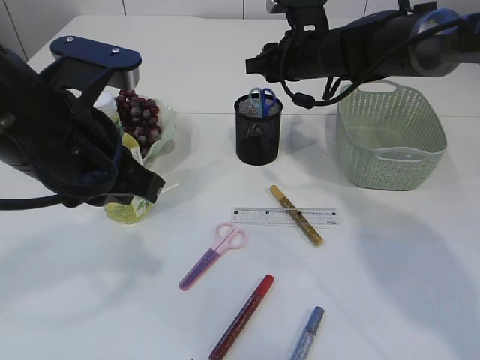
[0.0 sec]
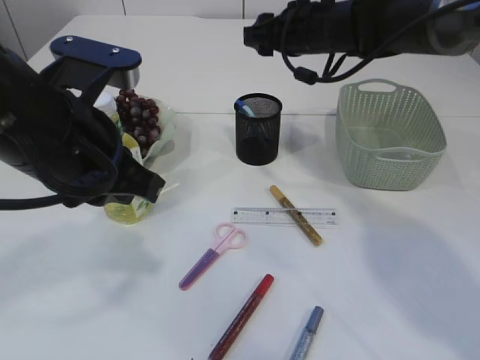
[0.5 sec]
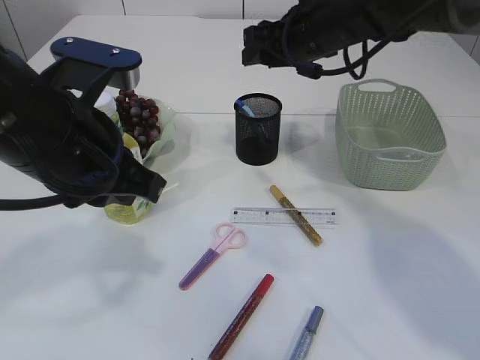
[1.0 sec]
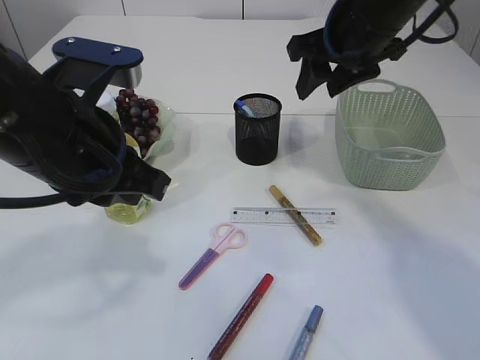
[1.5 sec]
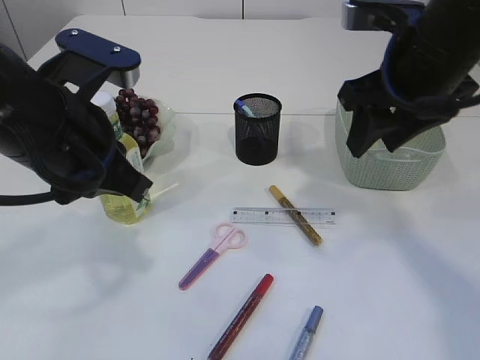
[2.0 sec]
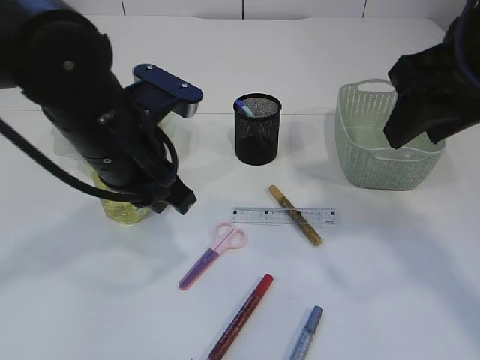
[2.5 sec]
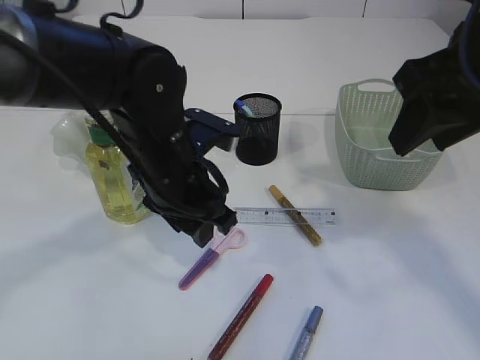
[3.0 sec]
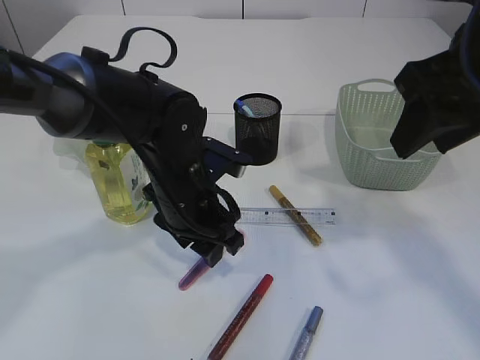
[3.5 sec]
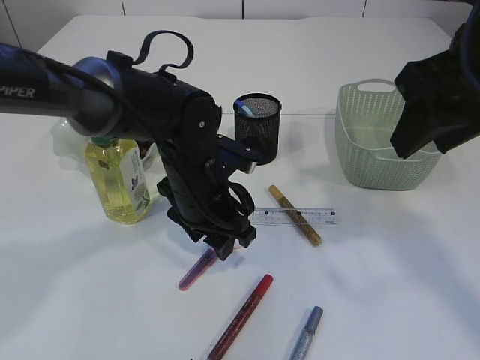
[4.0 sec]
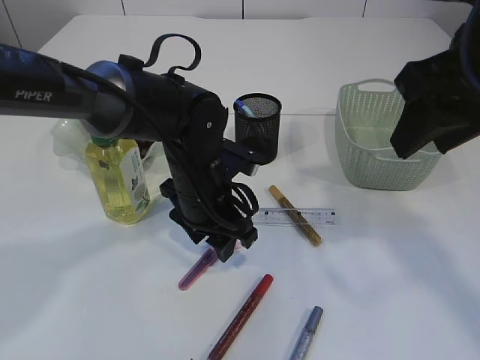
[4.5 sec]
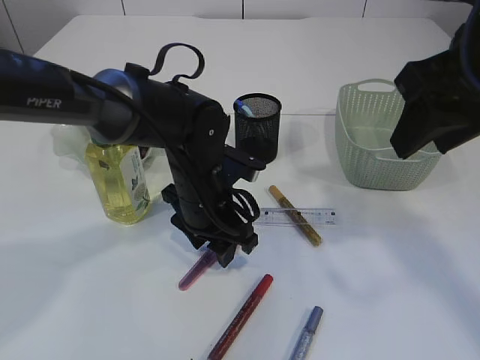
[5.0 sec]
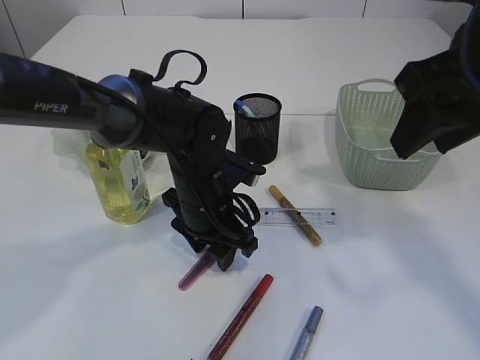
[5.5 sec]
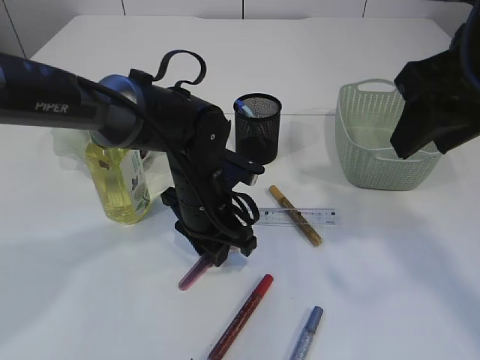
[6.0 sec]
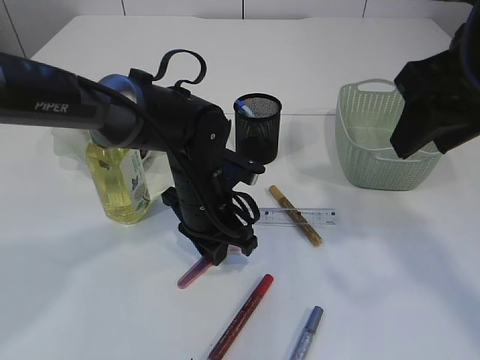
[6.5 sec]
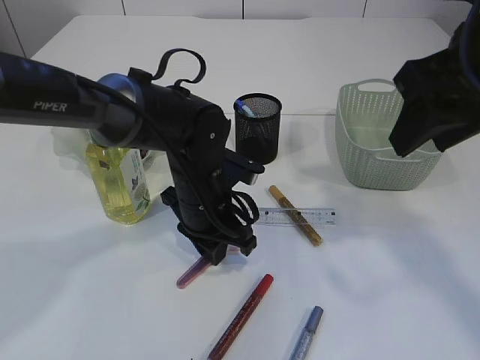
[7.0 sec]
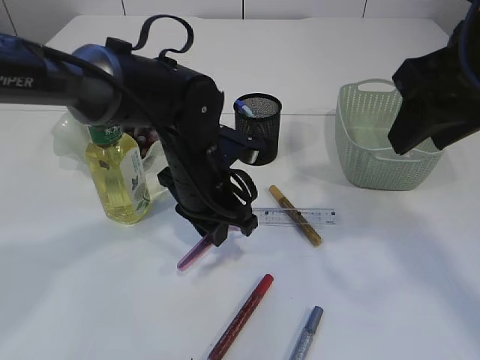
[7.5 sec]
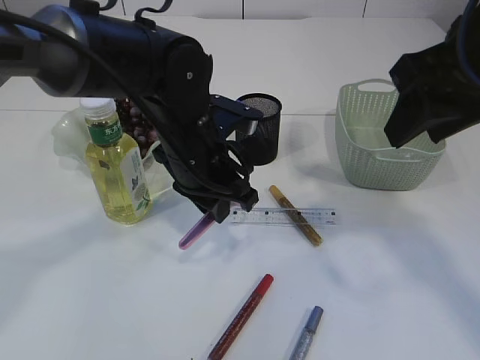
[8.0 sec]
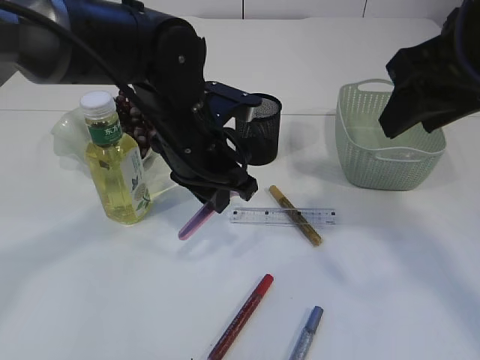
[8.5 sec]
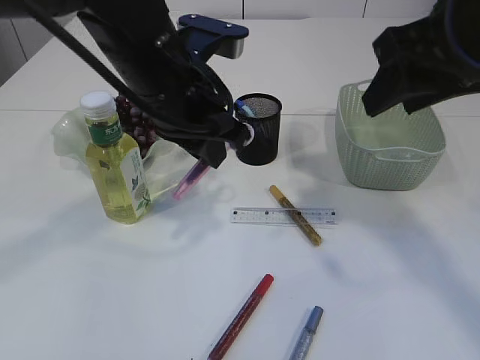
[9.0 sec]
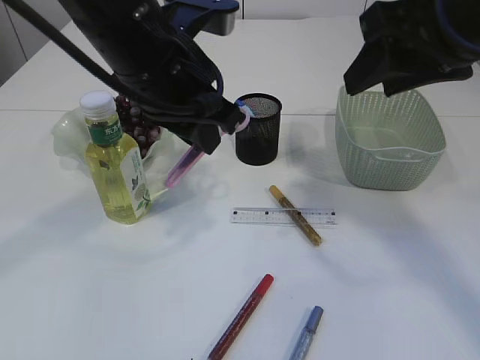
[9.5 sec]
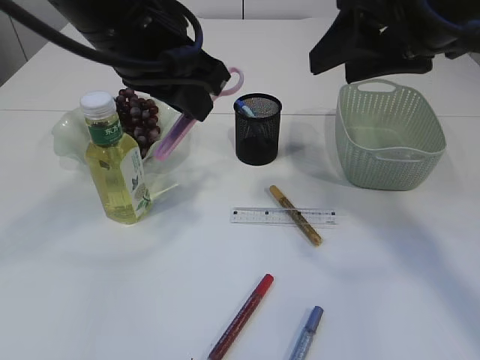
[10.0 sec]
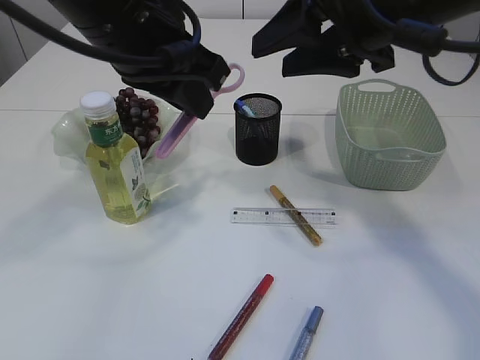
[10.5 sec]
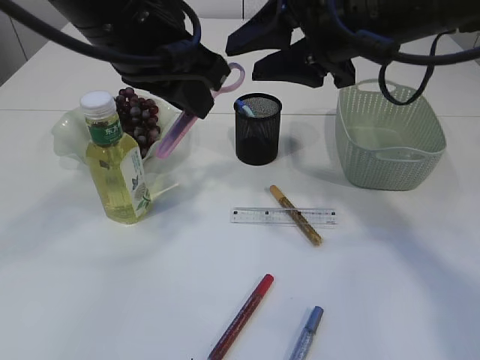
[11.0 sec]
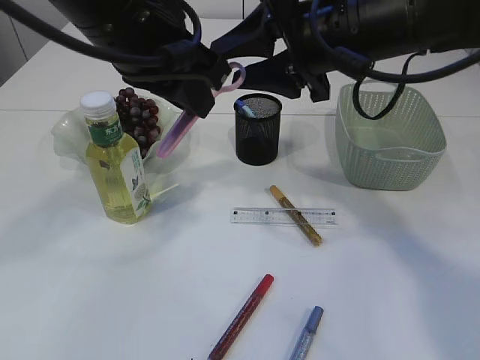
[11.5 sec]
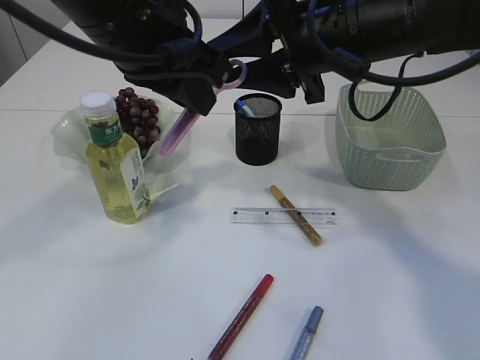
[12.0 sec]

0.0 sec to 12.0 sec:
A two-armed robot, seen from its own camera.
Step, 0.5 sec to 8.0 sec: pick up the pink scissors.
0.0 sec to 2.0 sec: The right gripper moves backward and upward, about 20 cm.
2.0 sec to 4.0 sec: The left gripper travels downward, to the right and forward by some 20 cm, and opens up; the right gripper heads backward, covering roughly 5 cm.
4.0 sec to 6.0 sec: The grippers make only small movements.
6.0 sec to 8.0 sec: The left gripper travels upward by about 5 cm.
8.0 sec to 10.0 sec: The left gripper shifts approximately 15 cm upward.
10.0 sec to 12.0 sec: The right gripper shifts some 10 cm forward, downward and to the left.

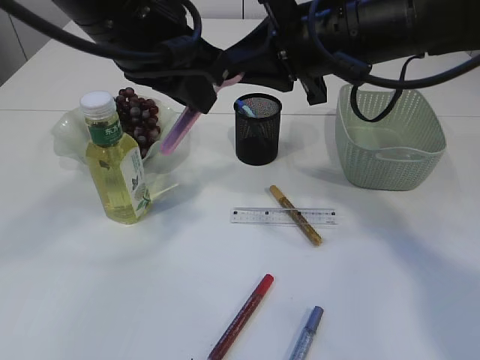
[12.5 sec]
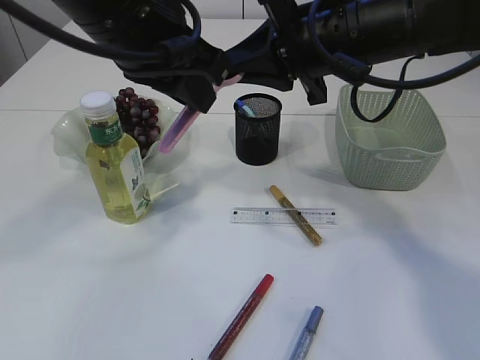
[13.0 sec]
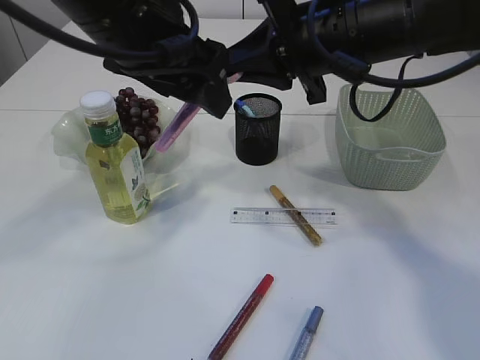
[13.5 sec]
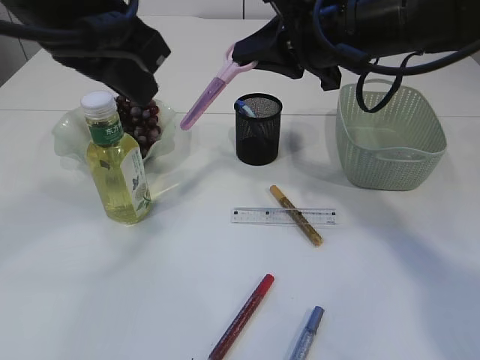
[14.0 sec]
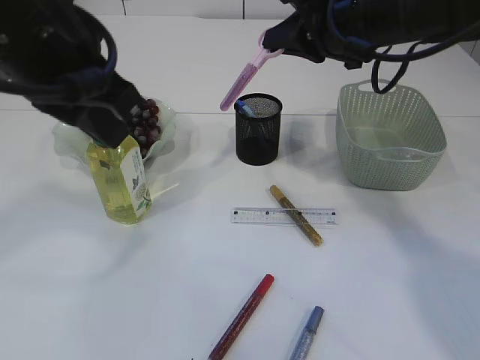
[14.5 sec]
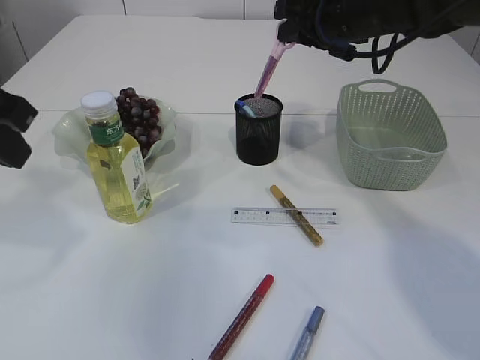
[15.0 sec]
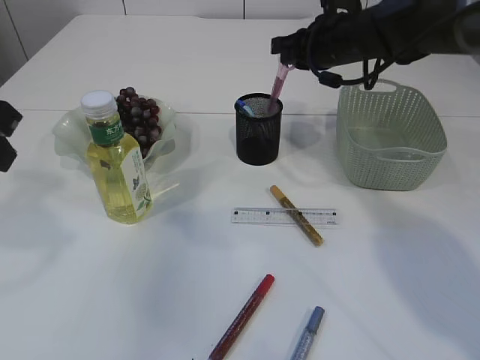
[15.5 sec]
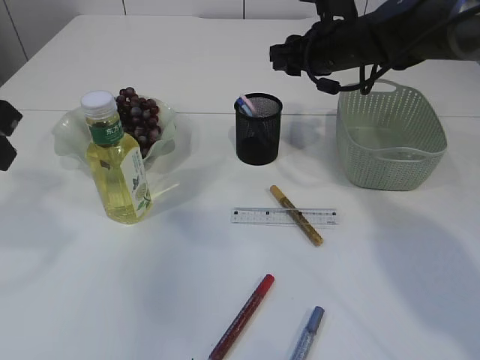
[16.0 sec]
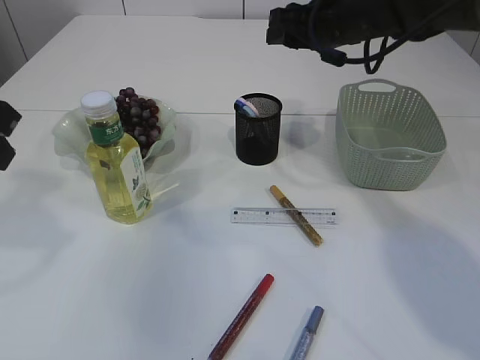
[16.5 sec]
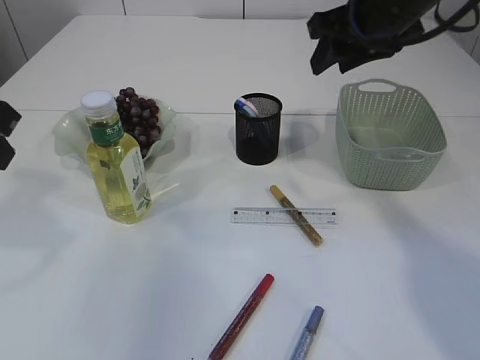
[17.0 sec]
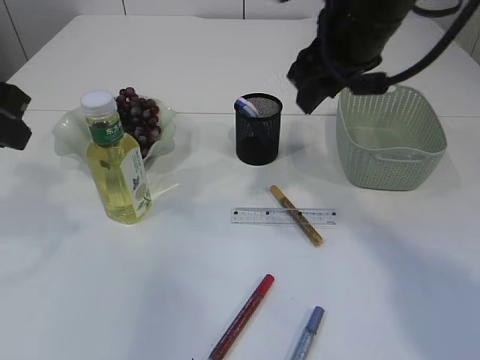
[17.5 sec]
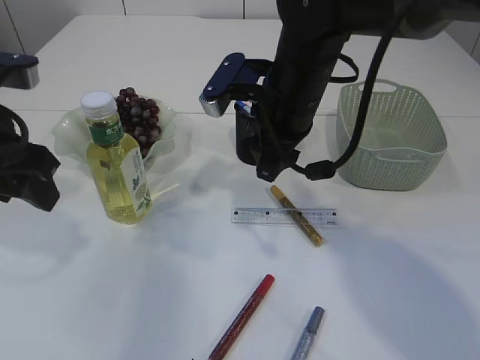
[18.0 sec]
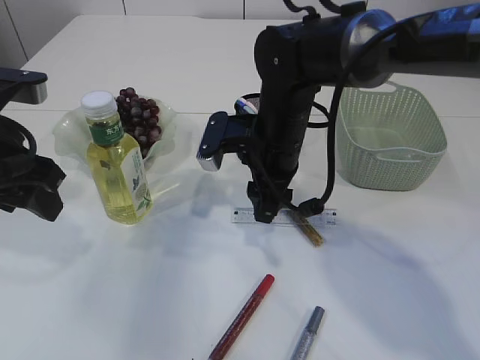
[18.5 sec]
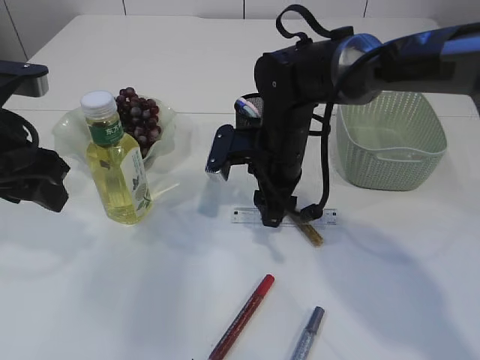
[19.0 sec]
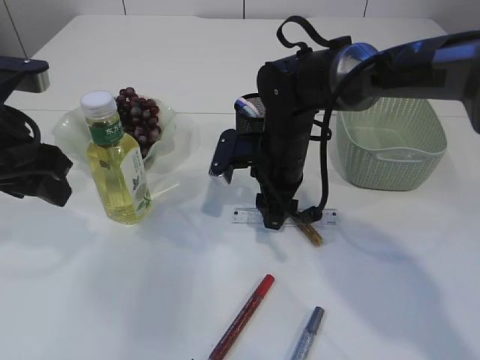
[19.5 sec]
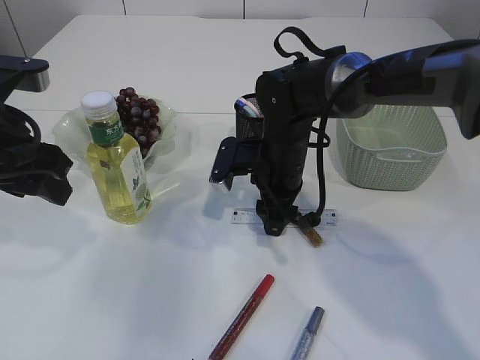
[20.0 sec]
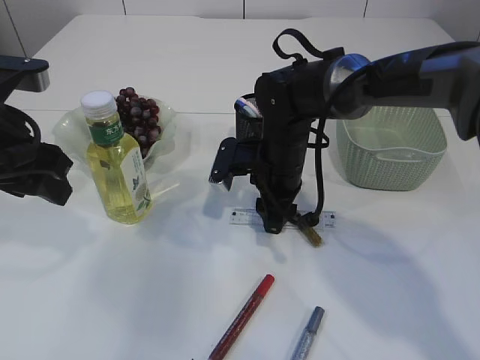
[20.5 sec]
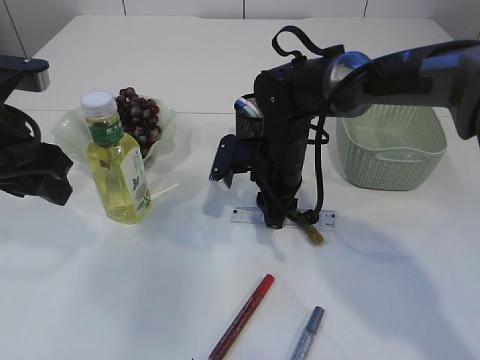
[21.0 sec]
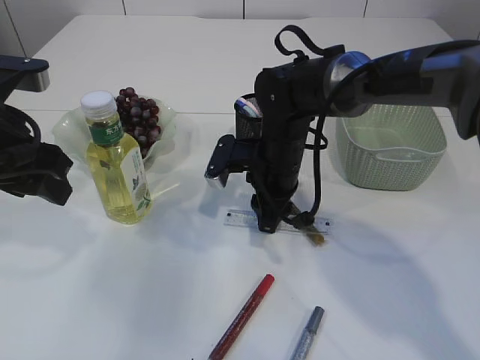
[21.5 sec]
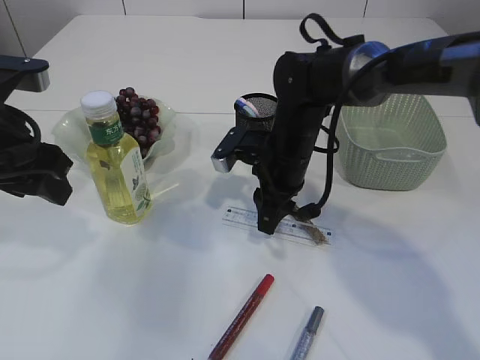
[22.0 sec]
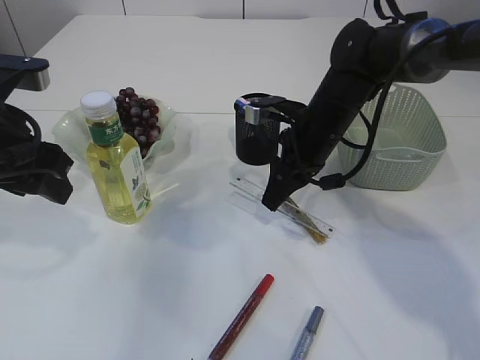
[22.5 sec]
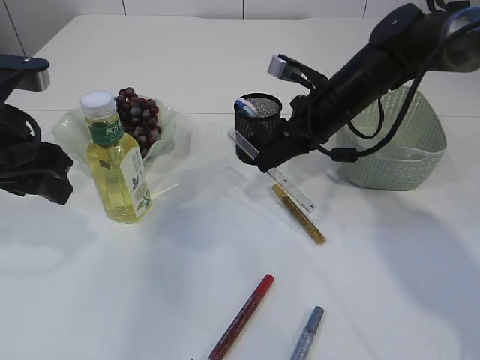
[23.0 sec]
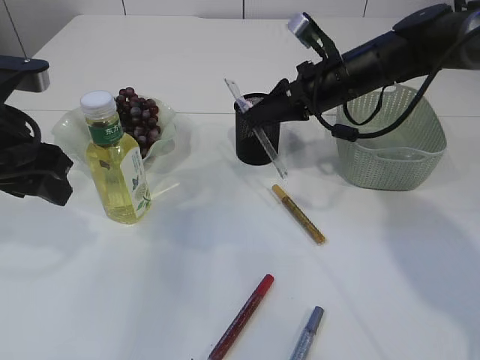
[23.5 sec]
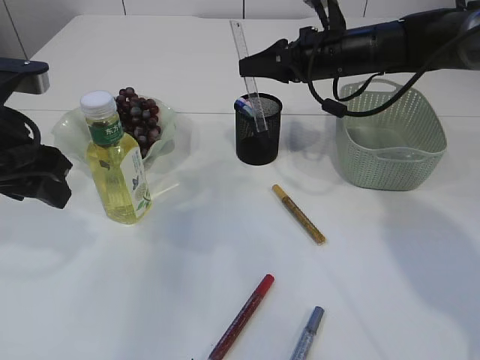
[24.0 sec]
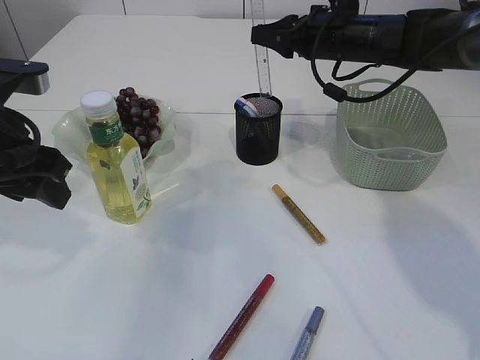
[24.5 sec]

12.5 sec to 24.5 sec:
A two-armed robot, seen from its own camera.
Step, 14.5 sec to 16.0 sec: Place the pink scissors into the pen holder.
Step, 16.5 sec to 22.5 sec: pick up the ruler.
12.5 sec to 14.5 sec: The right gripper shifts roughly 5 cm forward, while the left gripper shifts some 5 cm to the left, and opens and closes again.
14.5 sec to 16.5 sec: The left gripper goes approximately 10 cm to the left, while the right gripper heads forward, covering roughly 5 cm, and opens its fingers.
16.5 sec to 18.5 sec: The right gripper goes roughly 15 cm to the left, downward and backward; the left gripper travels downward by approximately 5 cm, and opens.
18.5 sec to 20.5 sec: The right gripper heads downward, covering some 5 cm.
20.5 sec to 22.5 sec: The right gripper shifts about 5 cm to the right.
22.5 sec to 24.5 sec: The right gripper heads upward and forward, covering approximately 10 cm.

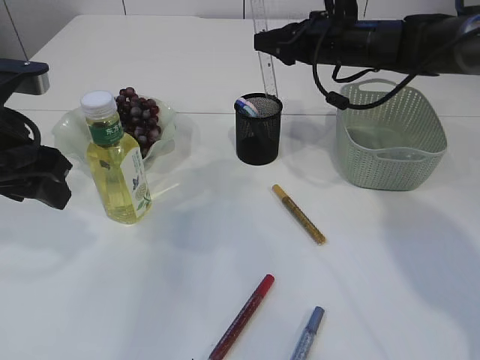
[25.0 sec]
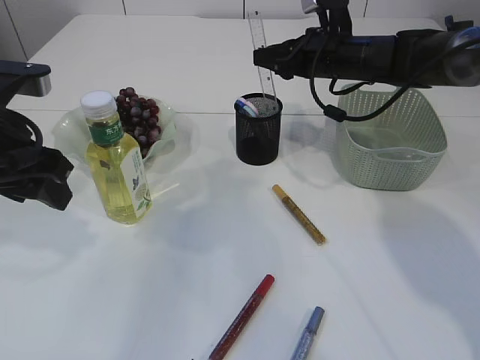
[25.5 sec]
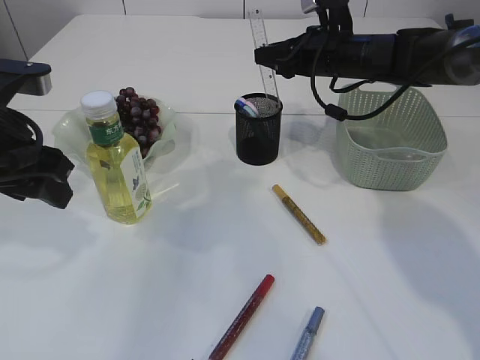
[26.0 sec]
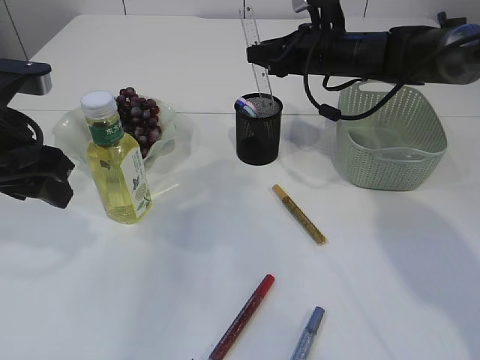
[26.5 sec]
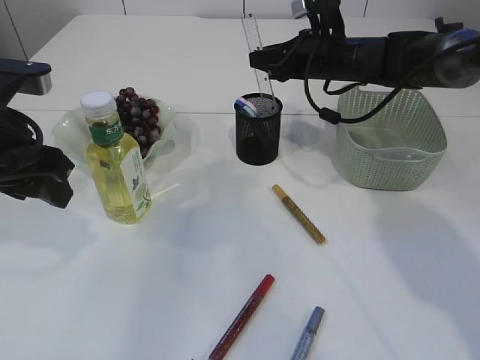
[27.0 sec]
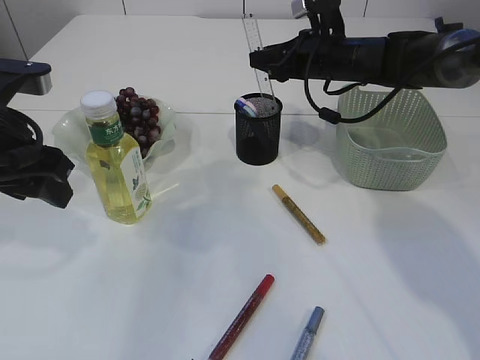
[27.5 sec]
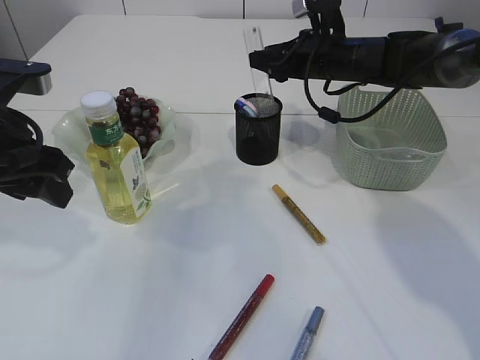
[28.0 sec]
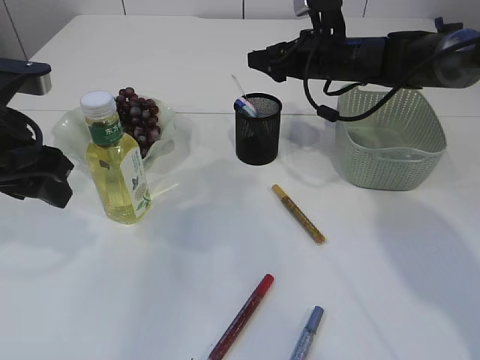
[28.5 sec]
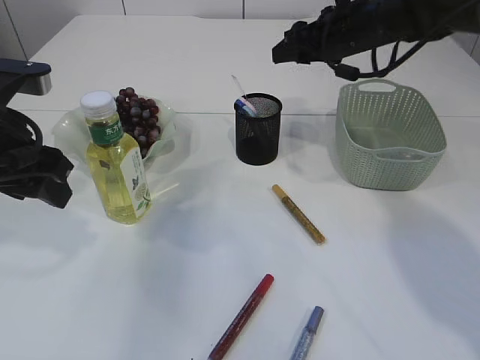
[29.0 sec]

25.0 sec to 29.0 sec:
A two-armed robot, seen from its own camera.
Step, 25.0 sec to 28.5 sec: Place the ruler into the pen holder.
25.0 sec to 27.0 sec: The grippers stay close to where they were, moving slightly.
27.0 sec to 29.0 sec: The right gripper shifts by about 5 cm.
